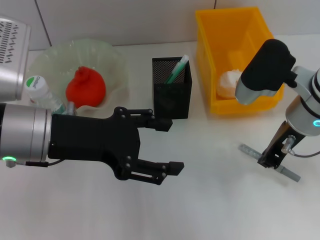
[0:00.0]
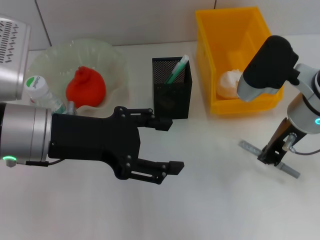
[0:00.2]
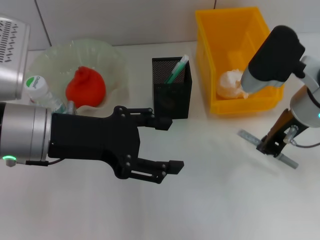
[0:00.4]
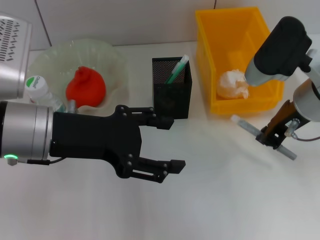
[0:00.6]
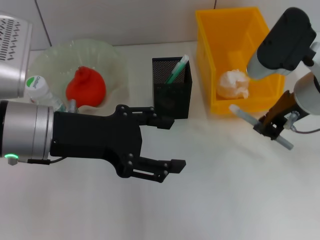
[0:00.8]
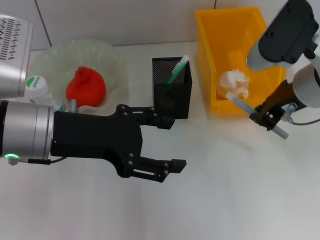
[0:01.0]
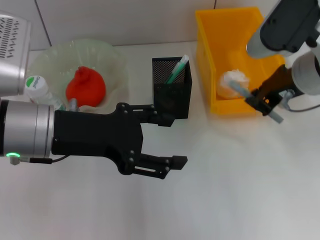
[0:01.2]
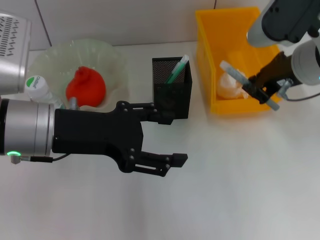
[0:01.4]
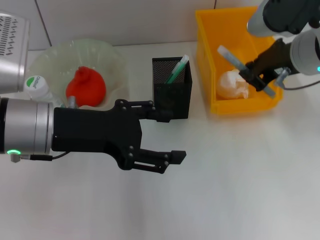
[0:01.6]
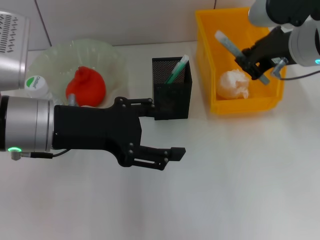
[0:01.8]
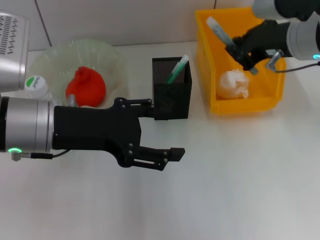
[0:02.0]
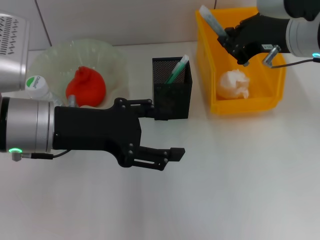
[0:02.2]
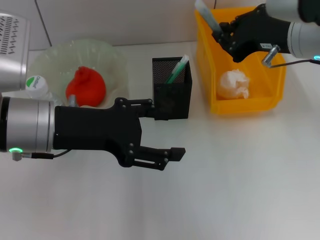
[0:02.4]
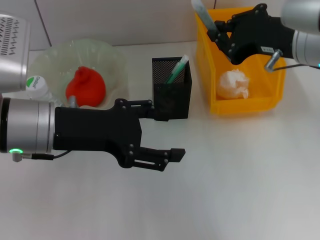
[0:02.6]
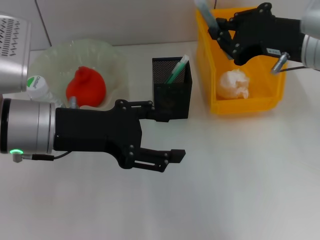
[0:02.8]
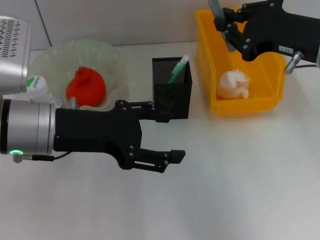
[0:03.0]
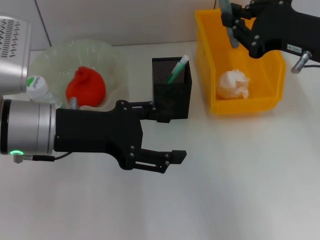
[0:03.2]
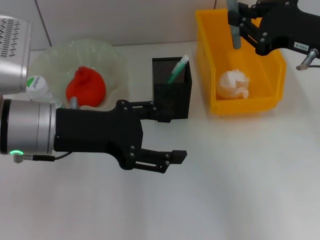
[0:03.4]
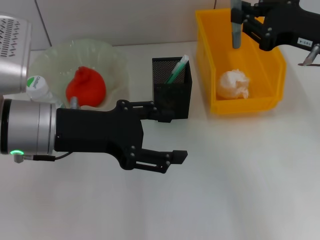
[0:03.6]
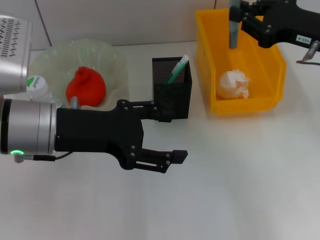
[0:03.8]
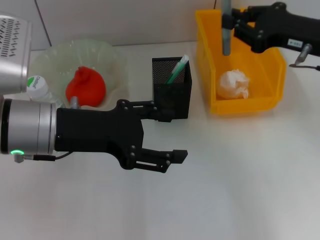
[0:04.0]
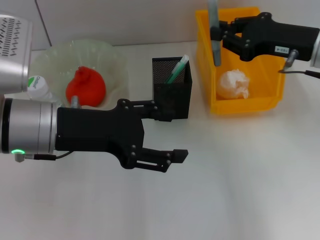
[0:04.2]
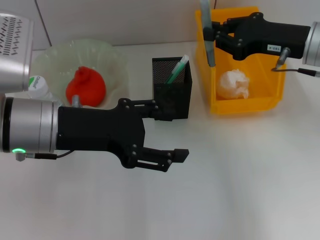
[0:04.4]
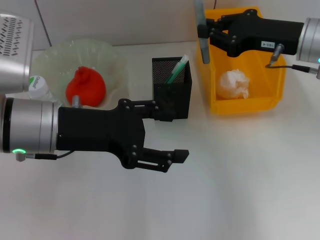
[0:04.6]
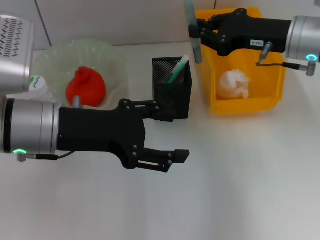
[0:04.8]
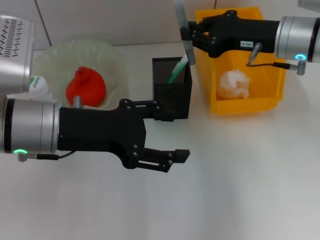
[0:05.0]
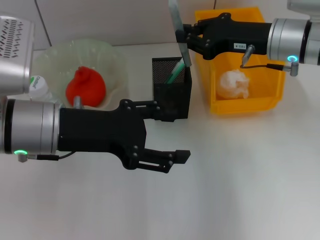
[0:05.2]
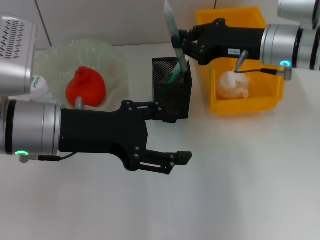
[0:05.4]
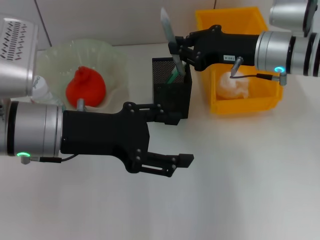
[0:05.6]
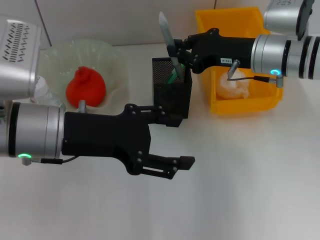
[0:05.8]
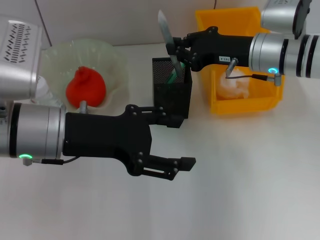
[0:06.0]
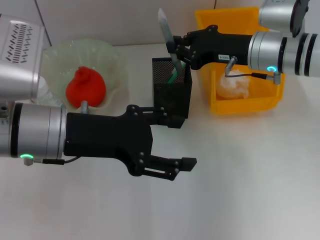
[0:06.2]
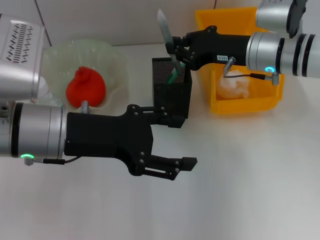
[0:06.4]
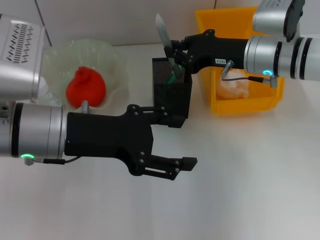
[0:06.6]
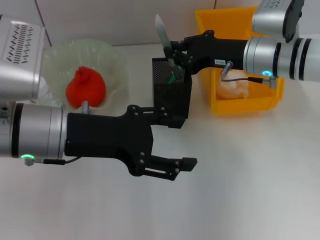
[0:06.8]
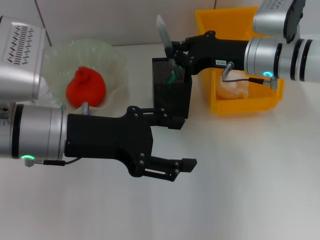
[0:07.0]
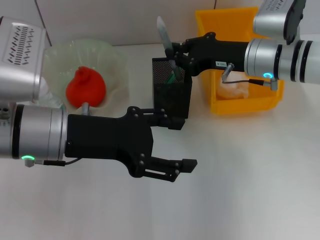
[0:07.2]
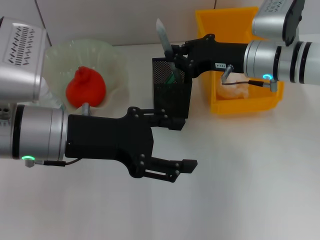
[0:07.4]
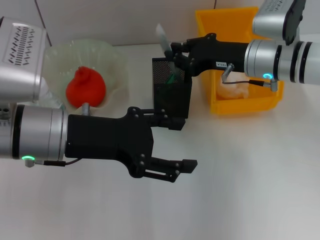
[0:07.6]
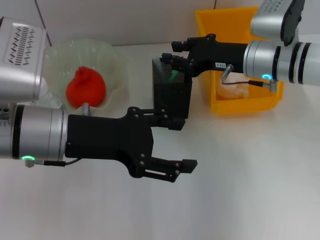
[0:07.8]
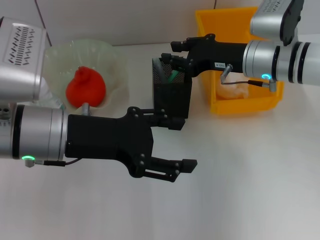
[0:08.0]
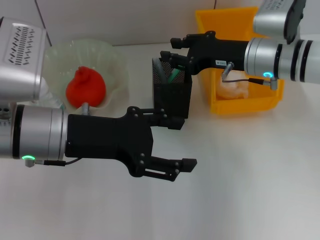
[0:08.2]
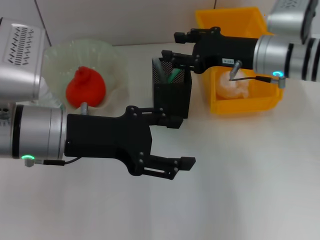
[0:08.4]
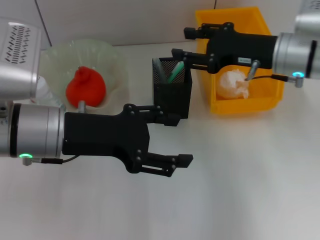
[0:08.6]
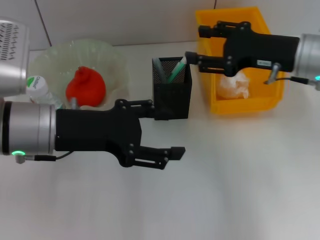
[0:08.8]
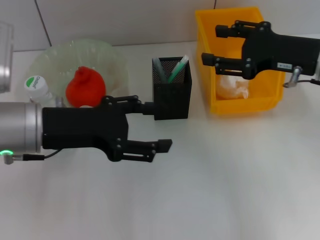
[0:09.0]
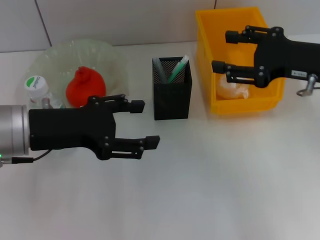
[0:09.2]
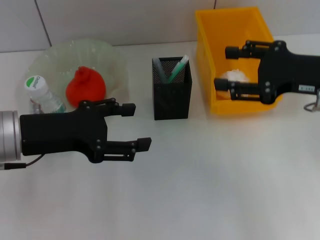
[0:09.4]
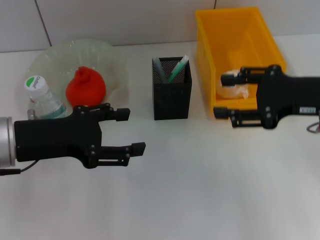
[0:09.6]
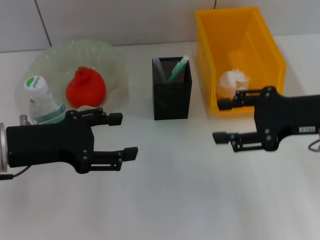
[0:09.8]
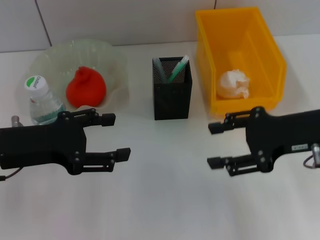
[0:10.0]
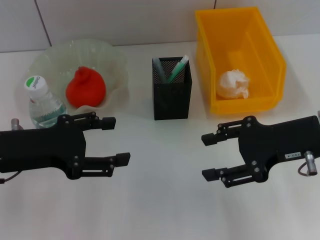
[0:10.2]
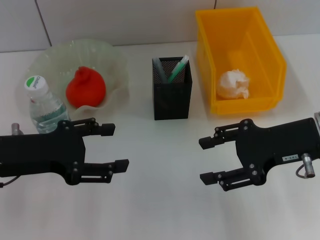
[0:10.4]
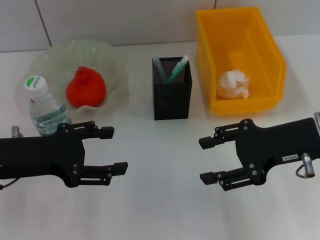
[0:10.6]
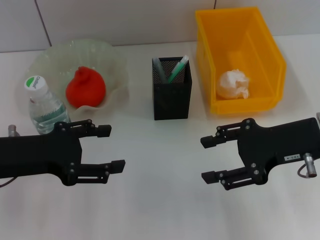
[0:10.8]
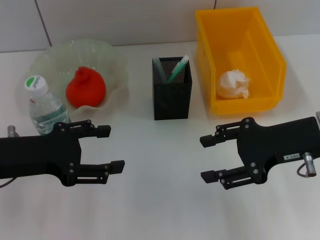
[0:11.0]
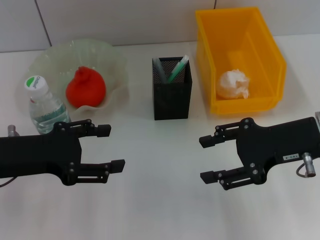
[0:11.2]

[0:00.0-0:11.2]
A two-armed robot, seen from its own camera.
Step, 0:00.0 to 0:07.6: Place the gray glue into the pen holder with the right hand.
0:00.0 to 0:01.6: The right gripper shifts some 5 cm upward.
0:01.6 to 0:03.2: The right gripper changes place by about 5 cm.
0:03.2 to 0:04.8: The right gripper is displaced forward by about 10 cm.
0:04.8 to 0:06.4: The right gripper shifts by about 5 cm.
0:06.4 to 0:08.0: The right gripper opens.
0:08.0 to 0:09.6: The left gripper goes some 5 cm to the left. Meanwhile the right gripper shifts approximately 15 cm backward and to the right, and opens.
